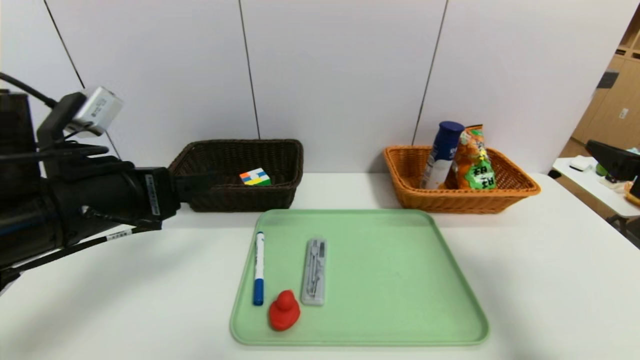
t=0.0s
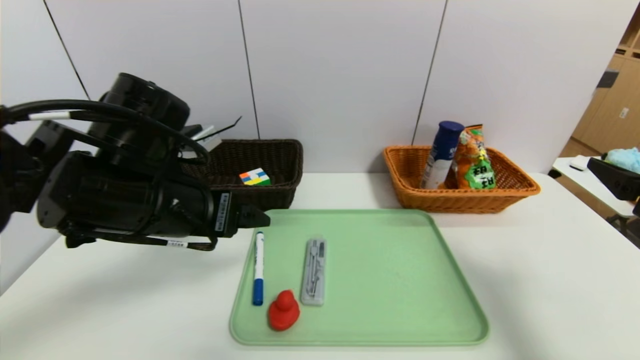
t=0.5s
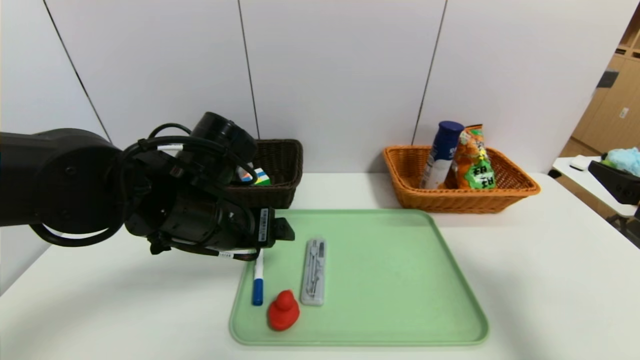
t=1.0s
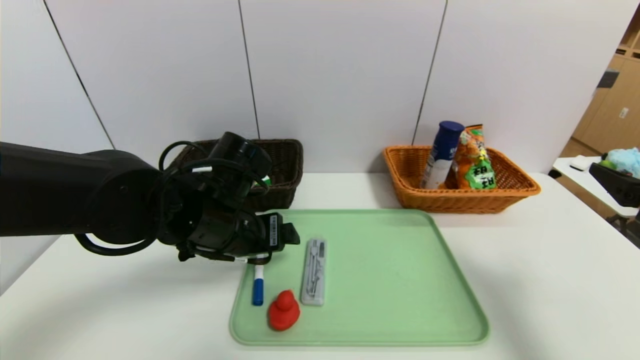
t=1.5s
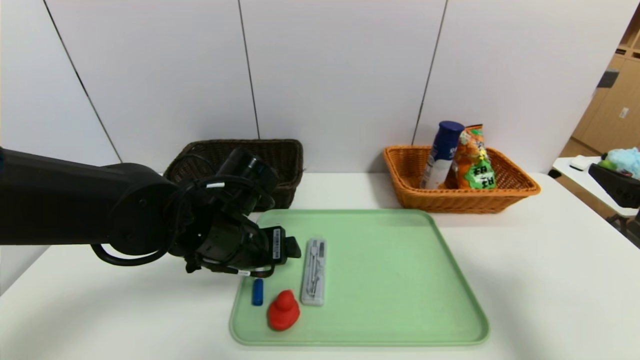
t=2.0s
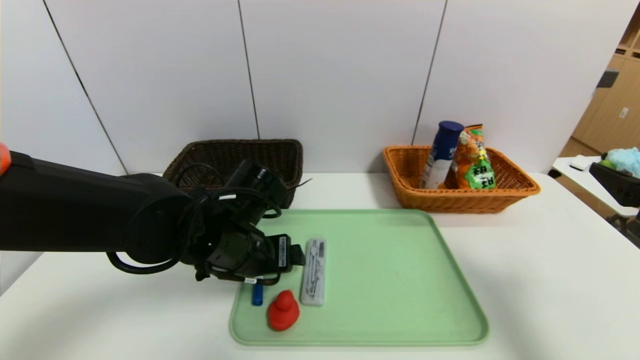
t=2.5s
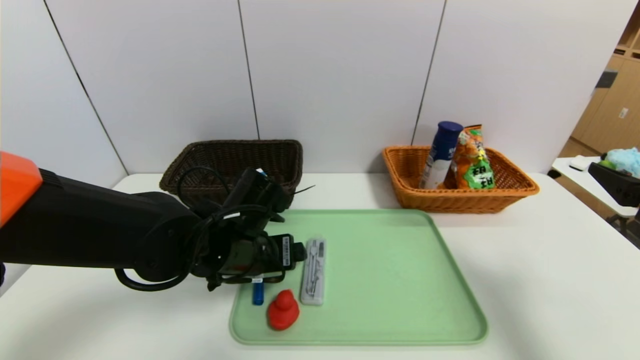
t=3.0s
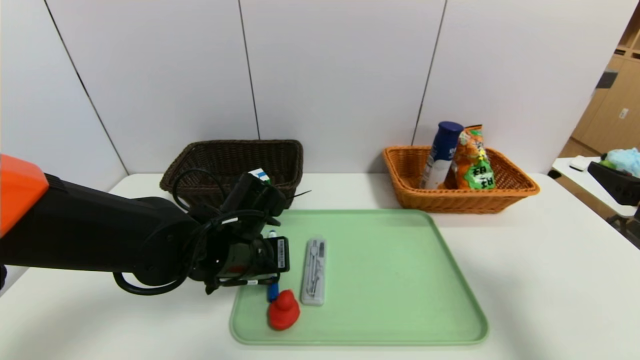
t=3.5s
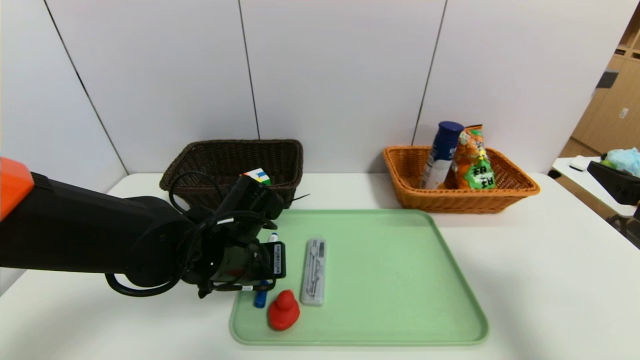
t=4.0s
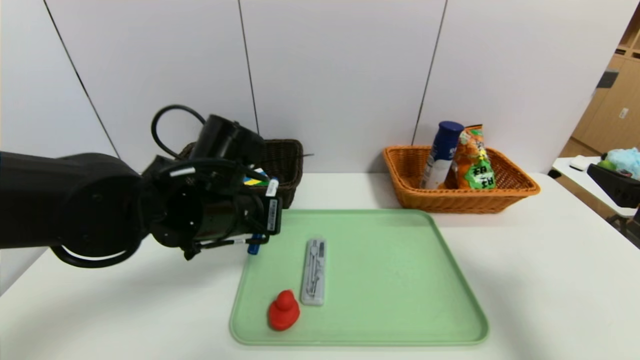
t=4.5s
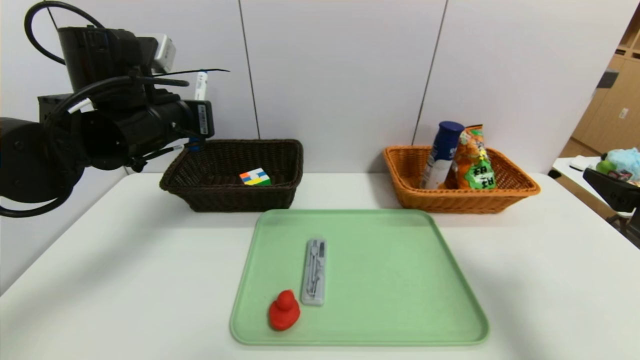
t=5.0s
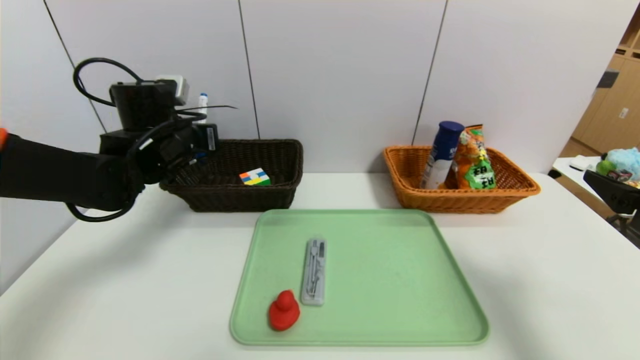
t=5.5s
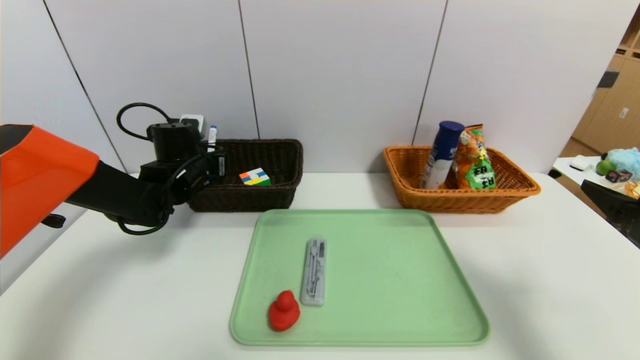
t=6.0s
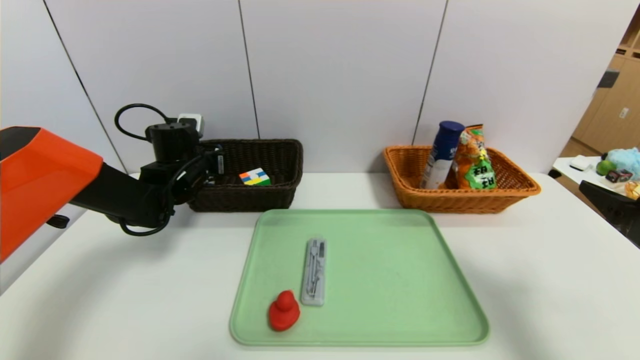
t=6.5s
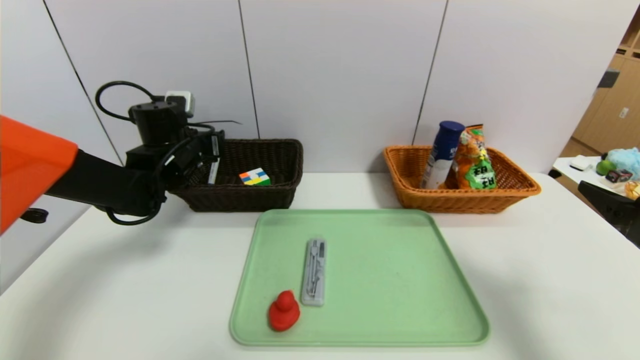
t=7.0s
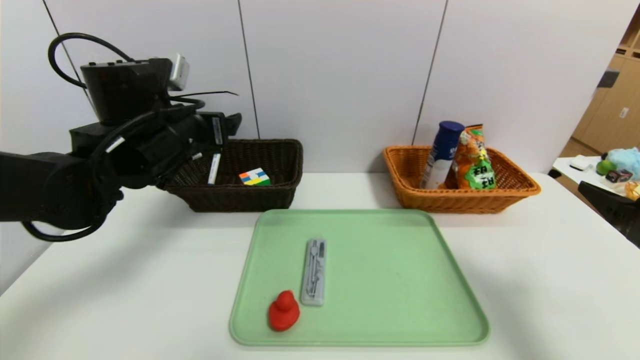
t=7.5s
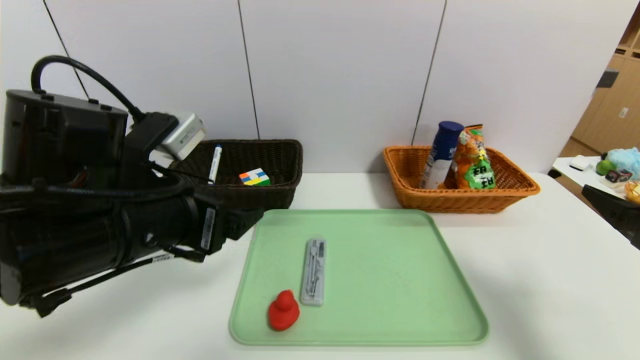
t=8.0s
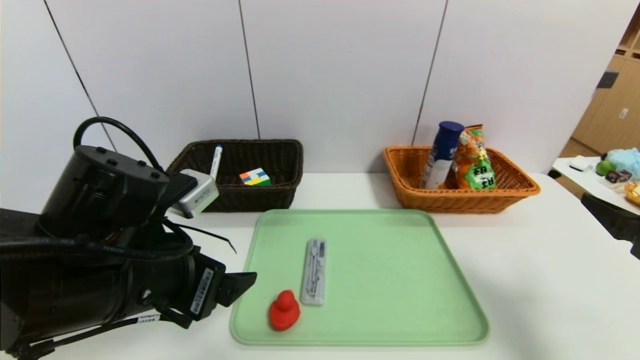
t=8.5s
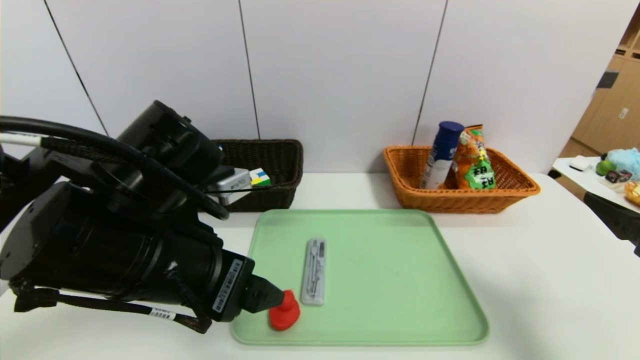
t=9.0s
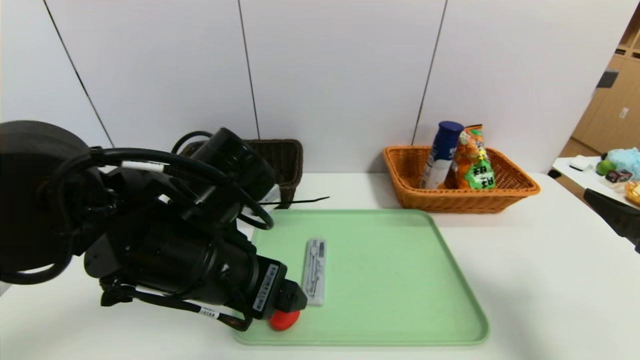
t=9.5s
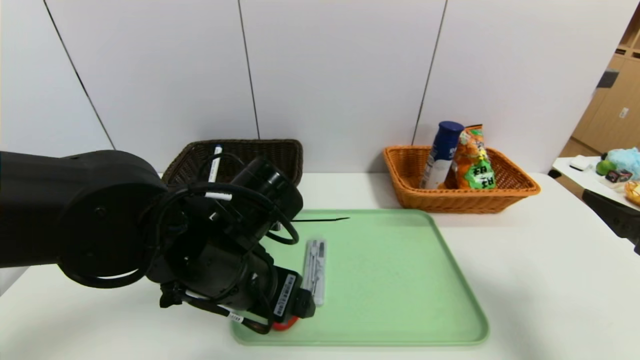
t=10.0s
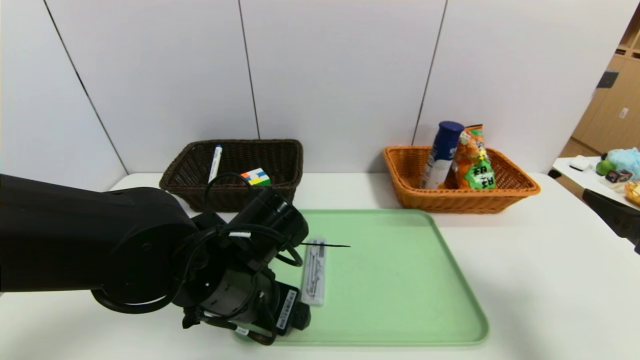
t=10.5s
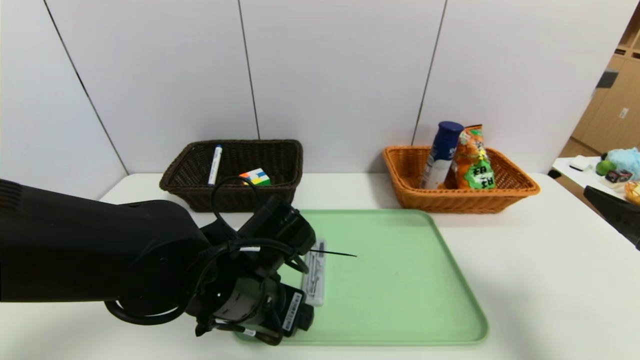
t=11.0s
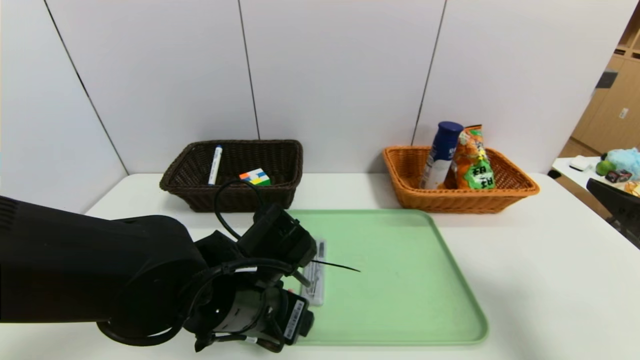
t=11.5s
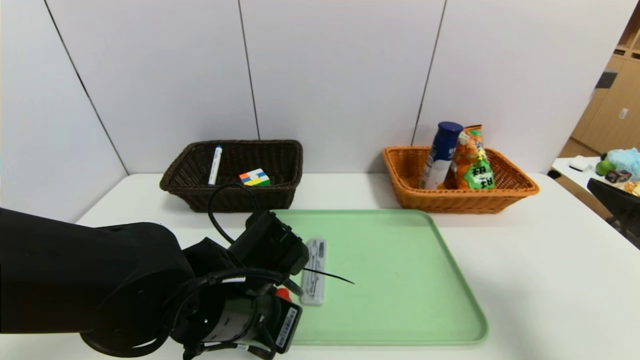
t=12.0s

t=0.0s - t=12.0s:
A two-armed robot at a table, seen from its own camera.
Task of the whole recording: place the food in the right basket with the right gripper, and place the non food items in the left basket with the left gripper.
Step, t=0.0s - t=7.0s: Grasp the blue marker and put it in the left basket.
t=0.0s - t=2.0s: The left gripper goes about 15 cm to the right, downward and forward.
t=2.0s - t=4.0s: The left gripper closes up.
t=4.0s - t=6.0s: The left gripper shifts roughly 20 cm forward and to the left.
t=6.0s - t=8.0s: The left gripper moves backward, roughly 25 cm, and opens its fingers.
t=8.0s - t=10.0s: The left gripper goes approximately 10 cm to the right and downward.
t=10.0s - t=12.0s: The left gripper is displaced downward by about 5 cm, and closes.

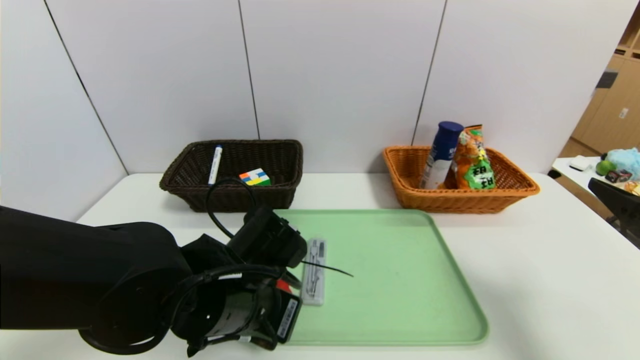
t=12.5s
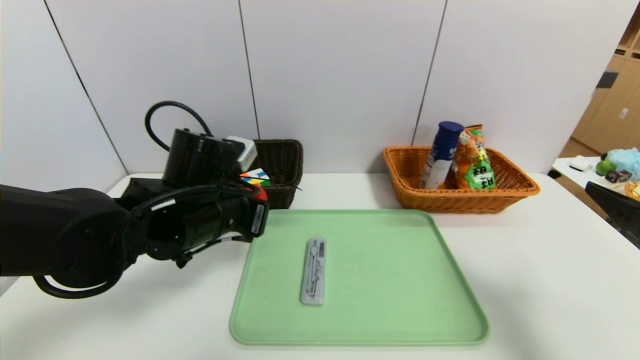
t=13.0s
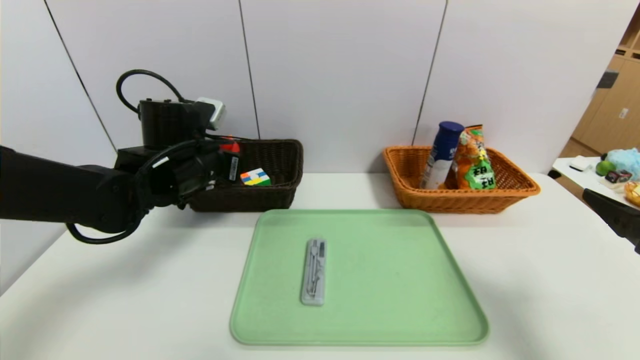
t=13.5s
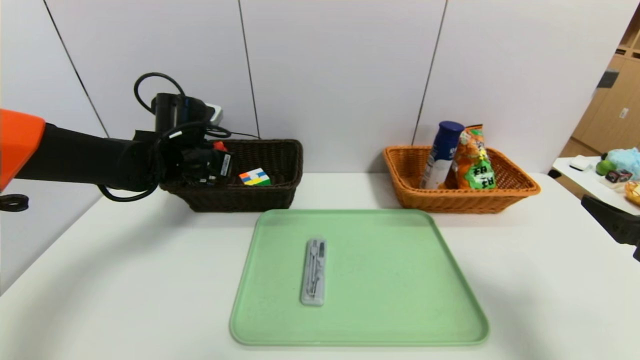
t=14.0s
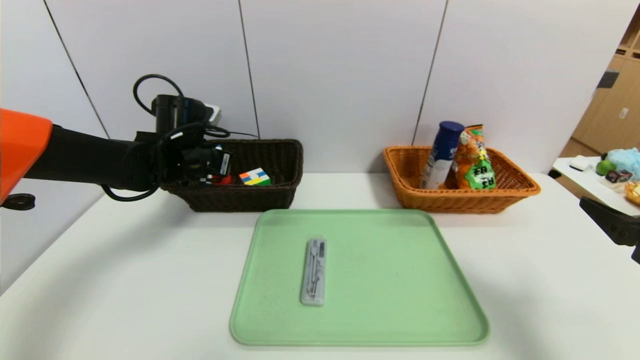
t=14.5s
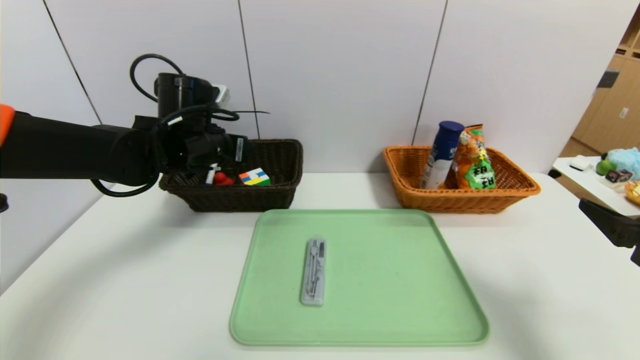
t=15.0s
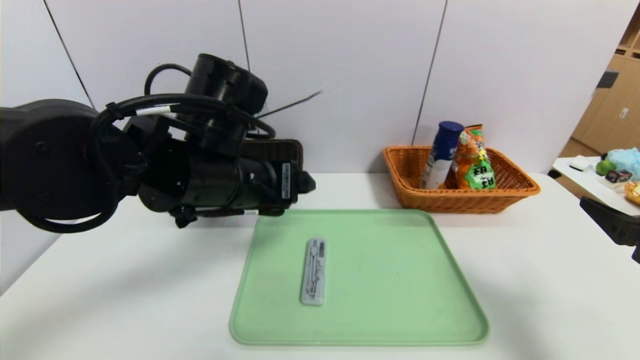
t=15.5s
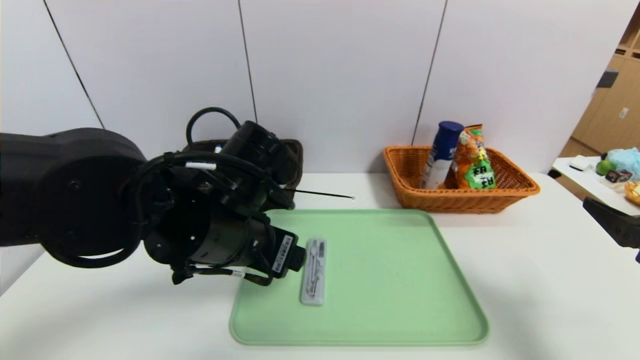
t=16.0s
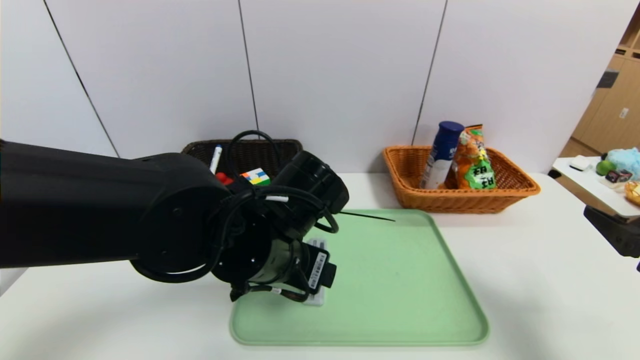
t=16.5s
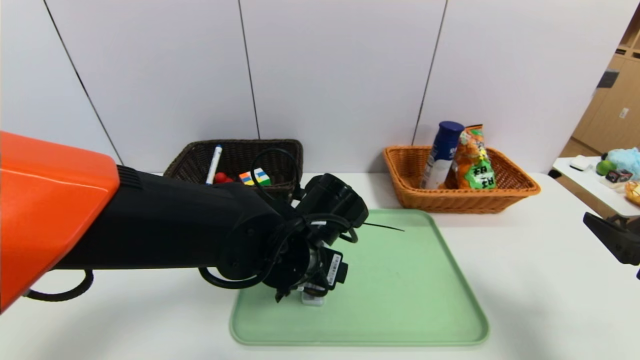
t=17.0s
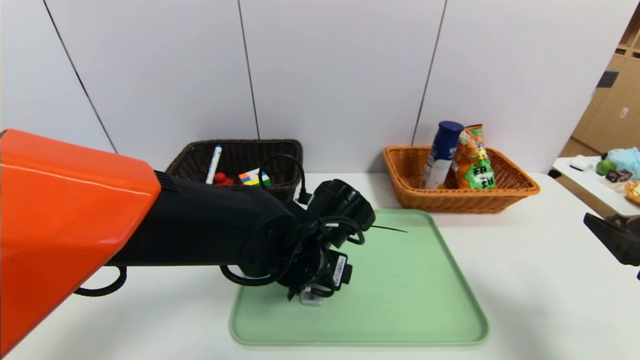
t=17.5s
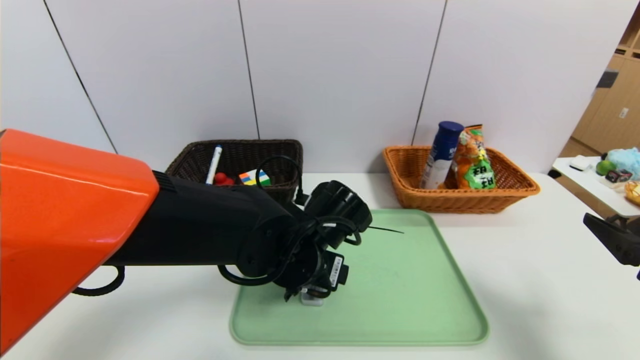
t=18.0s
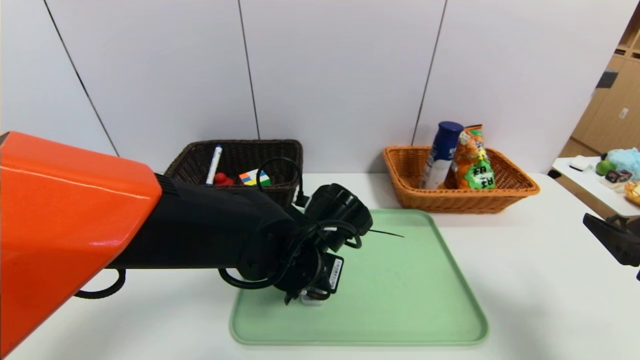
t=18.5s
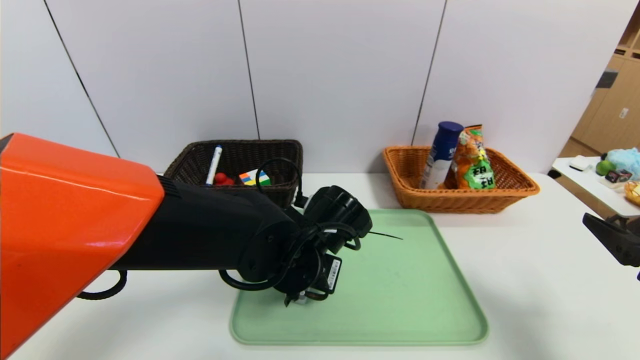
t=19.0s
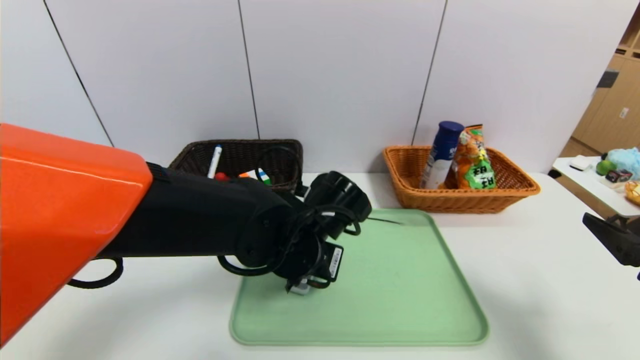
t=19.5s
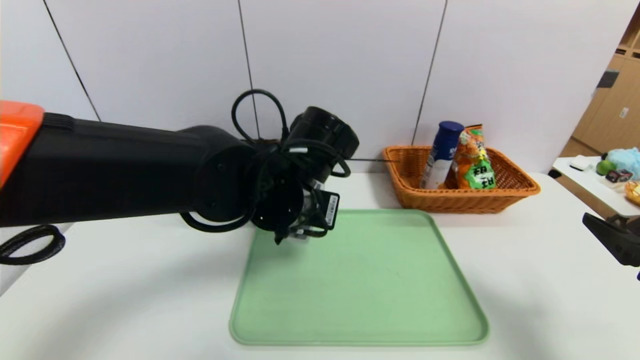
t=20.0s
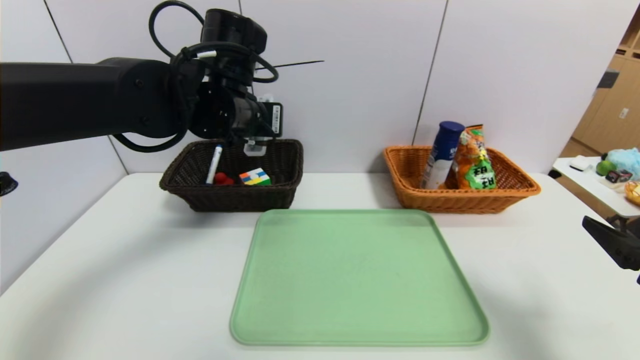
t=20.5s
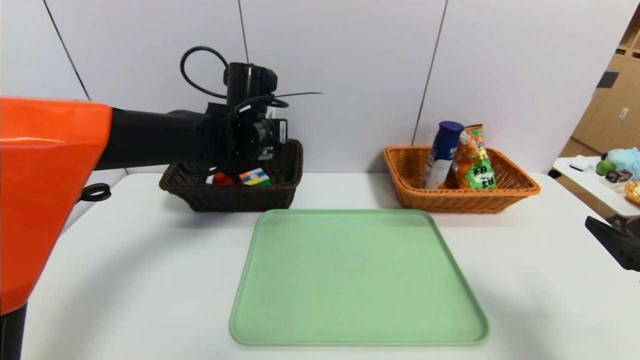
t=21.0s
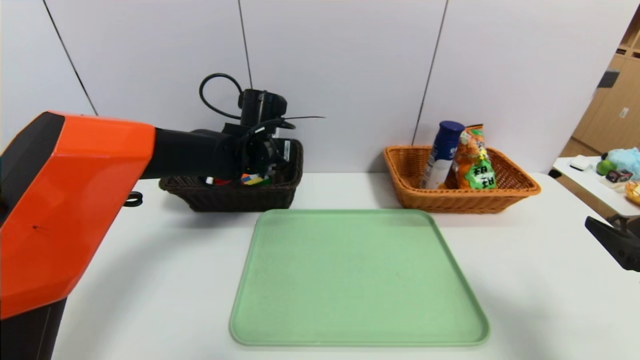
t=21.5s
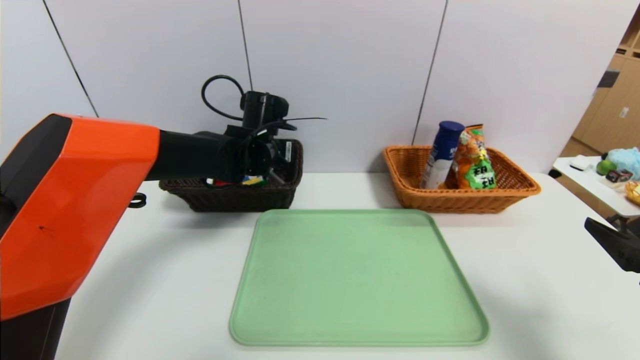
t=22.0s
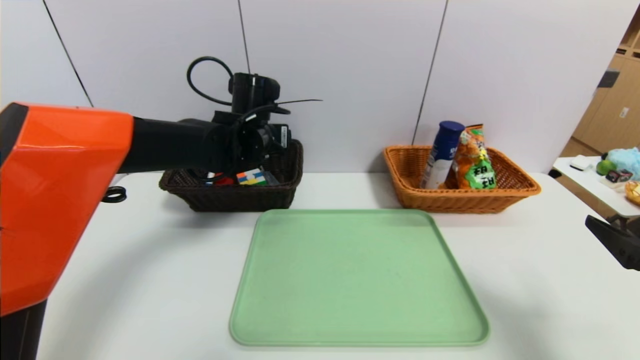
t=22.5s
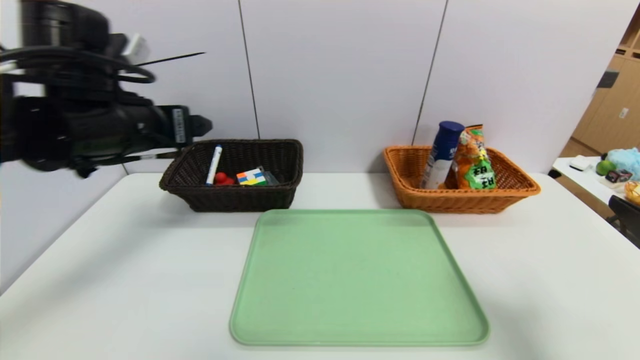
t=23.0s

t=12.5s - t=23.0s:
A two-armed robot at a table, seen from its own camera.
Task of the whole recording: place the food in the right basket with the right gripper, and place the non food items in the left basket with the left gripper.
Step, t=12.5s - t=15.0s: Grasp the duck toys and put it in the left basket.
Step, t=15.5s - t=22.5s: Grasp the compass and put it in the left basket.
t=12.5s - t=14.5s: The left gripper is displaced forward and to the left by roughly 25 cm.
t=14.5s - t=16.5s: The left gripper travels backward and to the right by roughly 25 cm, and opens.
t=16.5s - t=19.0s: The left gripper travels downward by about 5 cm, and closes.
t=19.0s - t=21.0s: The left gripper heads forward, upward and to the left, covering roughly 20 cm.
t=21.0s - t=23.0s: The left gripper shifts roughly 20 cm backward, to the left and upward, and opens up.
